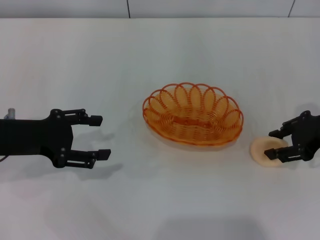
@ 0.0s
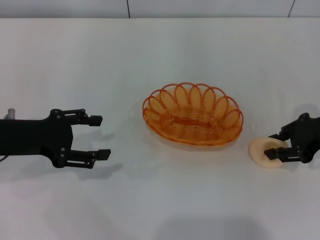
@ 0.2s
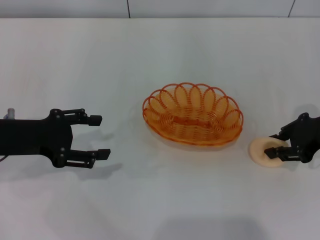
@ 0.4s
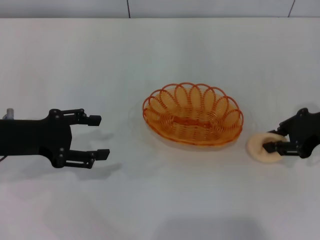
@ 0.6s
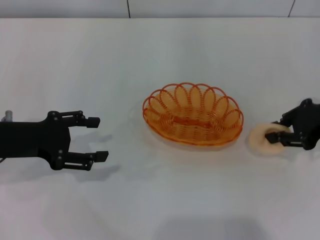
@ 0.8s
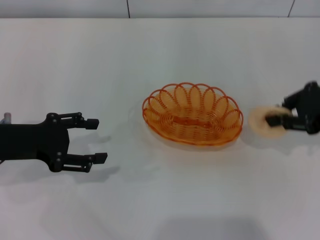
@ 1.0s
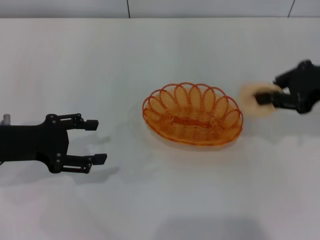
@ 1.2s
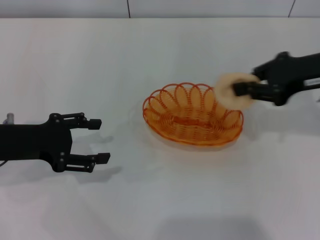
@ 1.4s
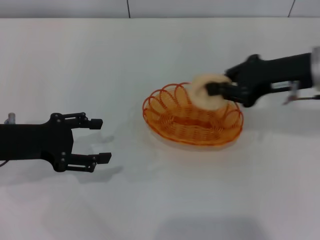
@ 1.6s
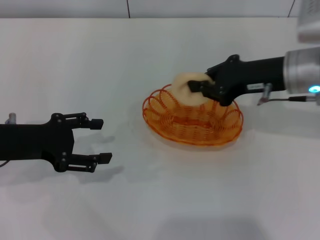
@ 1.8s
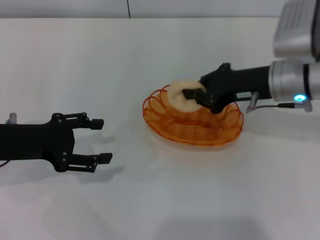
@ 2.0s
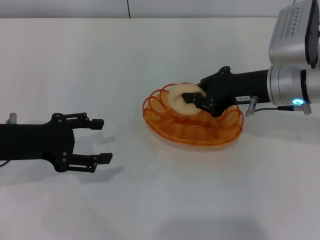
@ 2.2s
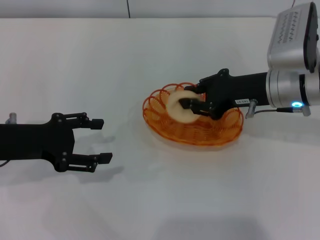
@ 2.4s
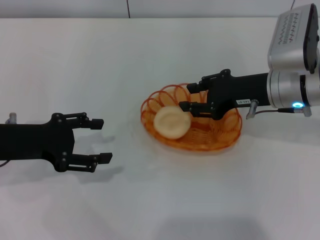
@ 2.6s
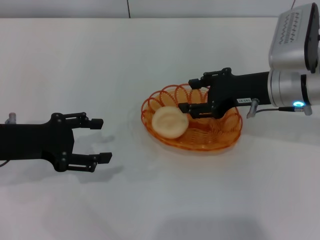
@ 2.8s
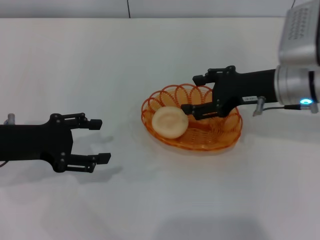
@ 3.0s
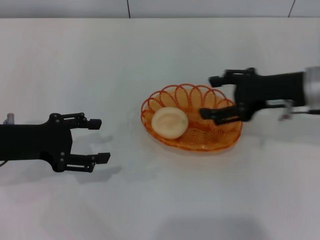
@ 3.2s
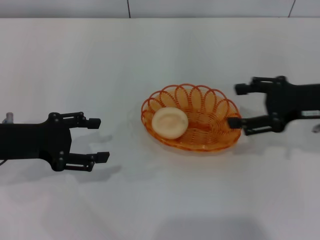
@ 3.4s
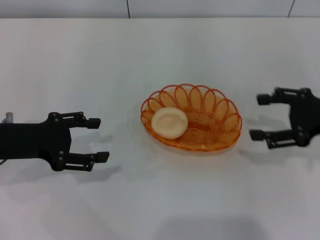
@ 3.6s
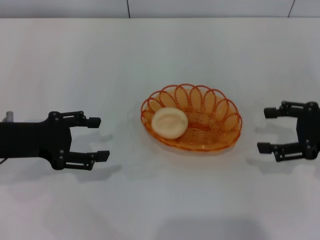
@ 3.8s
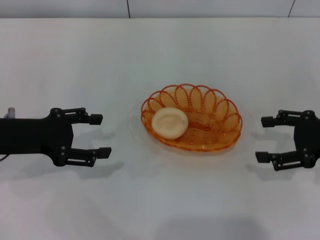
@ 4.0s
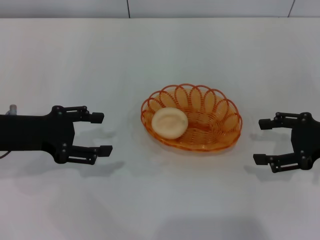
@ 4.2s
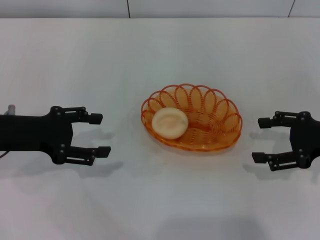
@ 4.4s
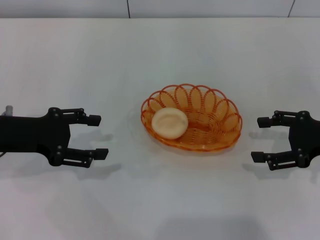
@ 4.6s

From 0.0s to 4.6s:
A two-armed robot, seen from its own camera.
Step, from 1.2s to 3.0s: Place the egg yolk pastry into the basket with the right gripper.
From 0.0s to 1.6s: The right gripper shifts about 10 cm to the left and upward, and closes up.
From 1.6s to 3.0s: The right gripper changes place by some 5 cm, and opens up.
From 3.0s to 4.6s: The right gripper is displaced to the right and backward by about 15 cm.

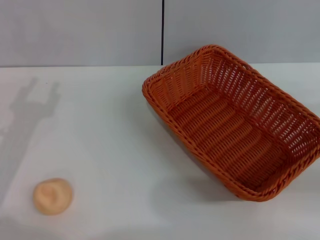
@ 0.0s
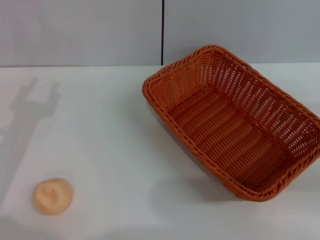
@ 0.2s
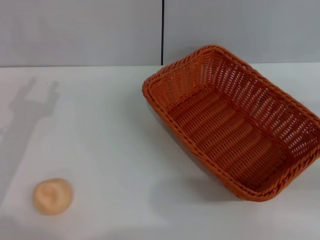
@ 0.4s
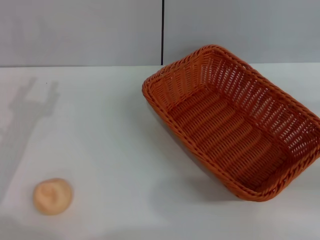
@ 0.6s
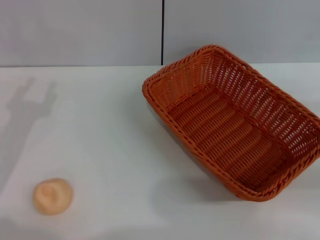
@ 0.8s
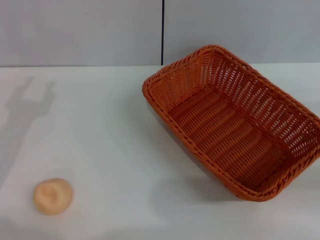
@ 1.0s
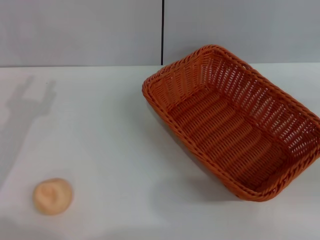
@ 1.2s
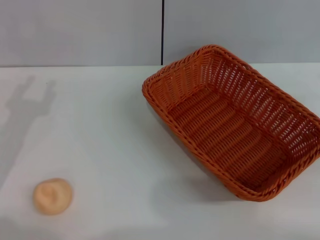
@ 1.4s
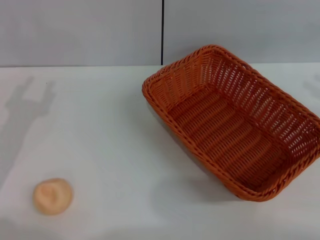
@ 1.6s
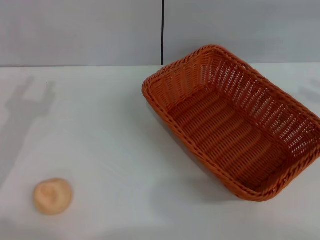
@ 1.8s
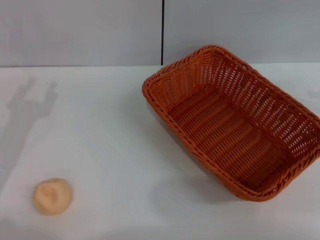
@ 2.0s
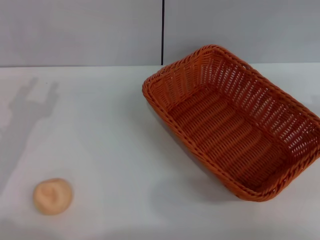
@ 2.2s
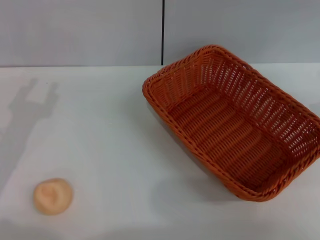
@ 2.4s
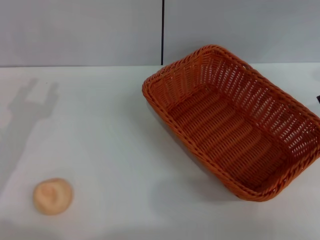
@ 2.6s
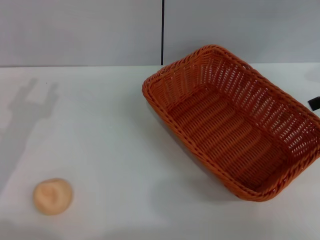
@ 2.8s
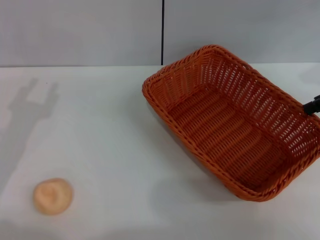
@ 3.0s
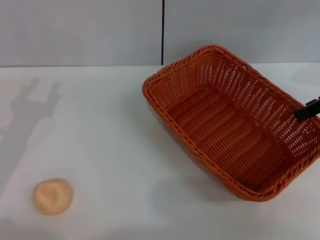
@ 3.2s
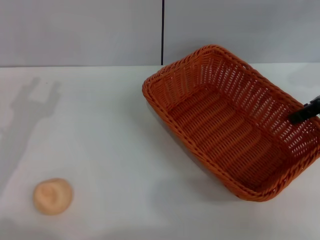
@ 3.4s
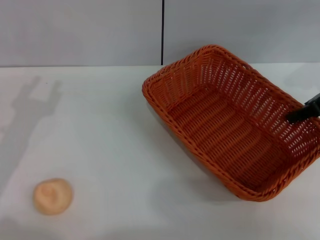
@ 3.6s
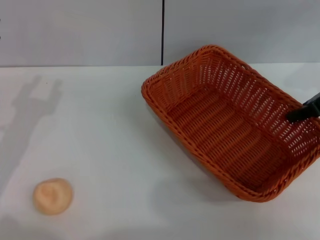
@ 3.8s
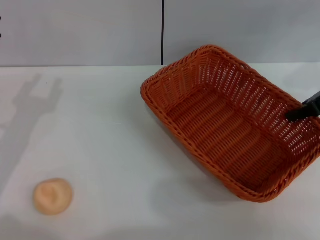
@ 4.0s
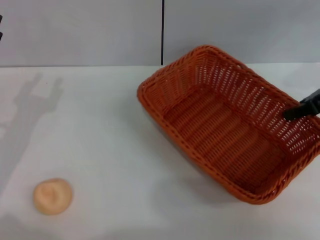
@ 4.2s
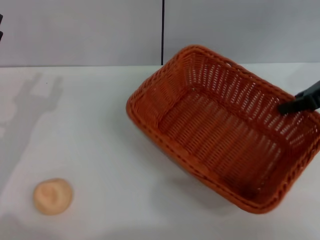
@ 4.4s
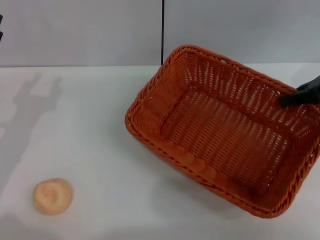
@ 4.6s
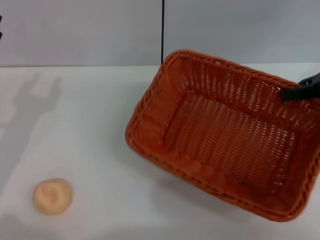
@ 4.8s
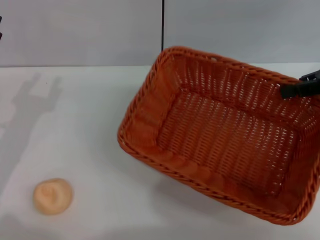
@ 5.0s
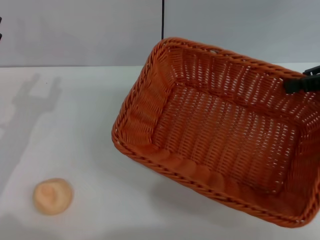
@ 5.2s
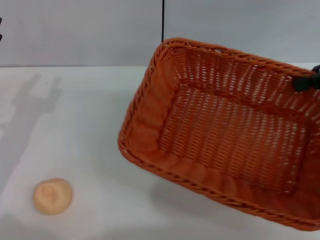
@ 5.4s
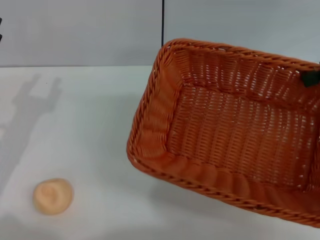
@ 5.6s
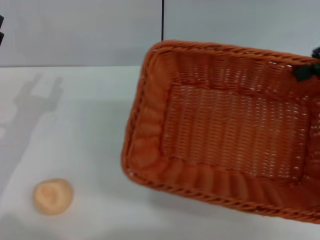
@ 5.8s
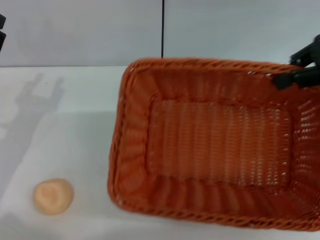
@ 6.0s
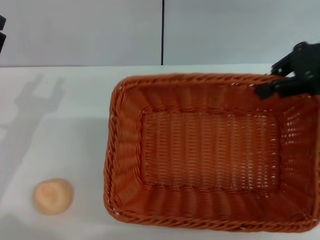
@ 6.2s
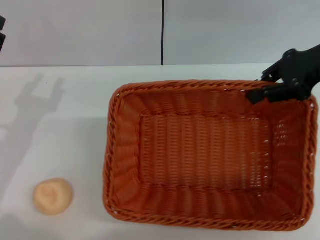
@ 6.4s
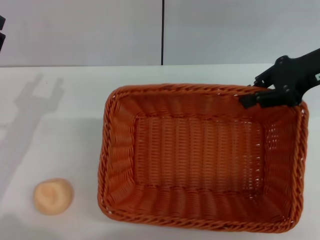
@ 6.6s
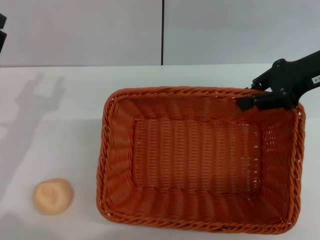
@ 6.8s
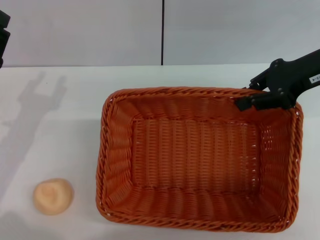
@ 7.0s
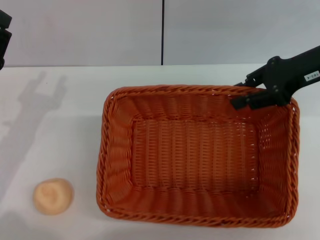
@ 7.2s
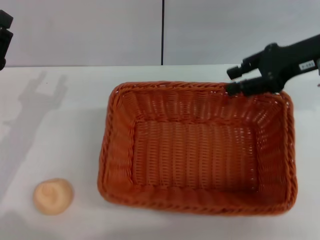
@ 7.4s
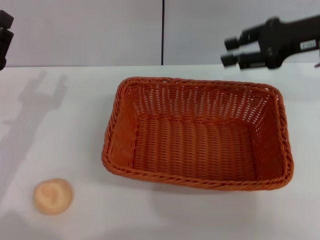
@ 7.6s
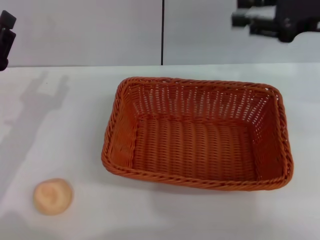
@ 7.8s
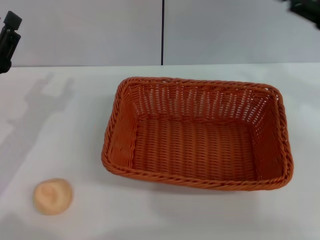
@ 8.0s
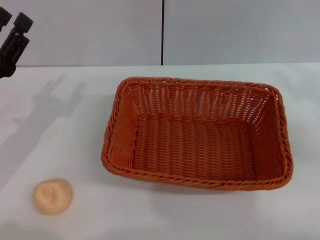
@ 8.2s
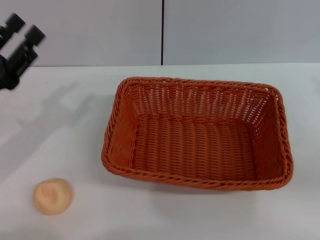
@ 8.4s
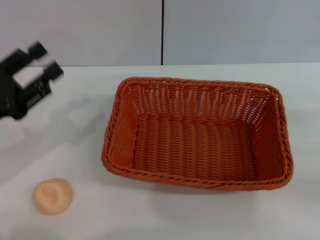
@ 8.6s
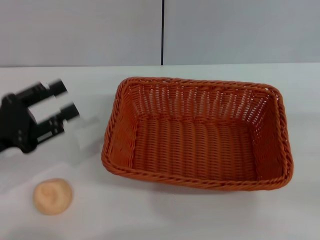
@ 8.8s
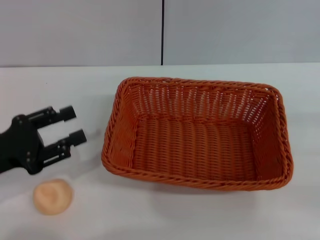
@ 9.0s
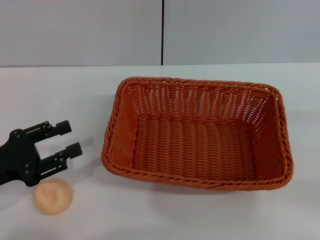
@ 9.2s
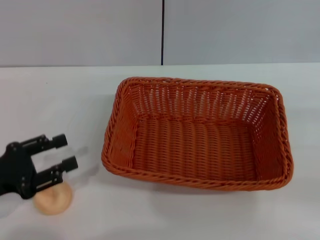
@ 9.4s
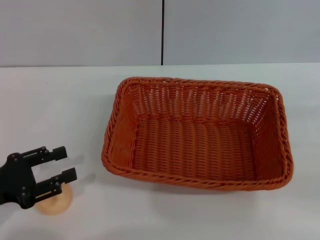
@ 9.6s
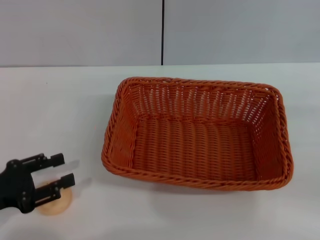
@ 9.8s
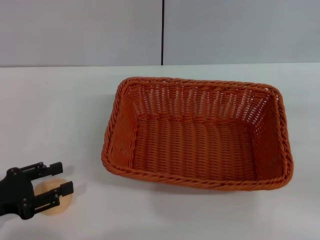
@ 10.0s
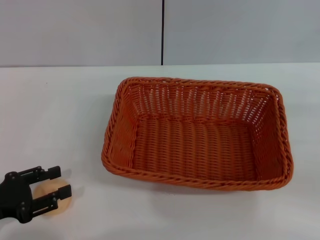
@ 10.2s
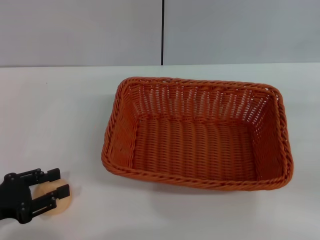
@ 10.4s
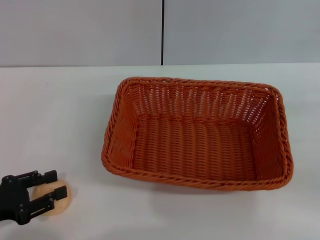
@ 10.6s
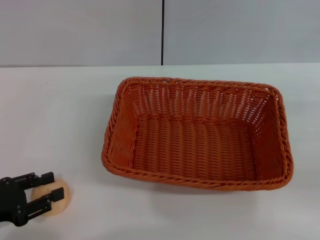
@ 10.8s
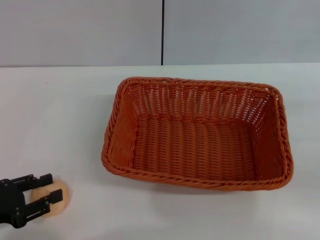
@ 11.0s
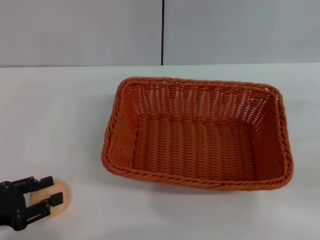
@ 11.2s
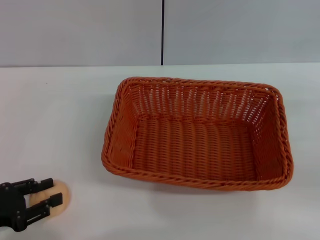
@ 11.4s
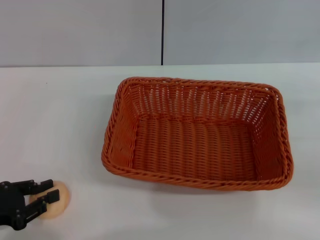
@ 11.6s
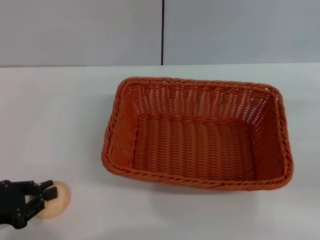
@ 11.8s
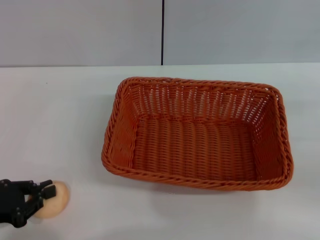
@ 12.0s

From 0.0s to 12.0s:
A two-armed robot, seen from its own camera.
Step, from 0.0s to 7.4s: Move the basket to the center of view with the right gripper.
From 3.0s to 4.4s: The right gripper closes its fingers.
From 4.4s to 6.0s: The right gripper moves upward, approximately 5 cm.
From 6.0s to 7.6s: The right gripper moves some 5 cm, and opens its fingers.
From 7.6s to 9.0s: The right gripper goes about 25 cm backward, to the right and downward.
From 9.0s to 10.4s: The left gripper ends up about 5 cm from where it was.
From 10.4s to 12.0s: The left gripper closes up.

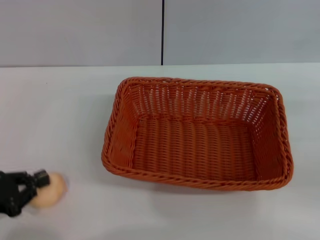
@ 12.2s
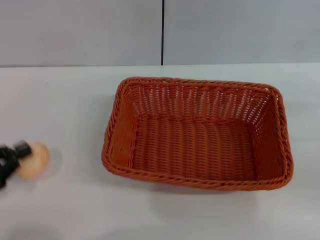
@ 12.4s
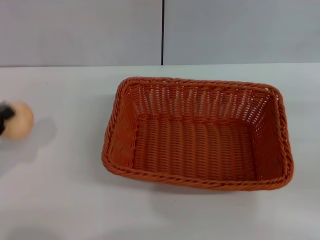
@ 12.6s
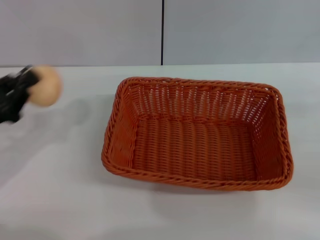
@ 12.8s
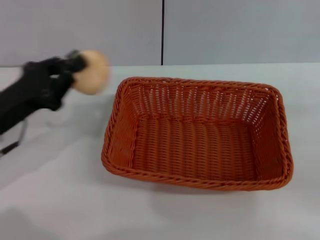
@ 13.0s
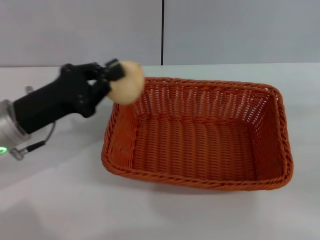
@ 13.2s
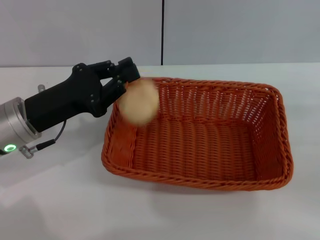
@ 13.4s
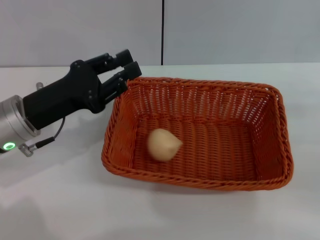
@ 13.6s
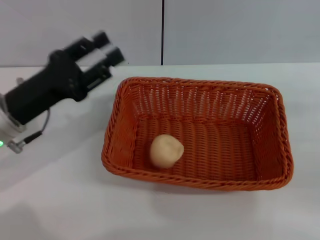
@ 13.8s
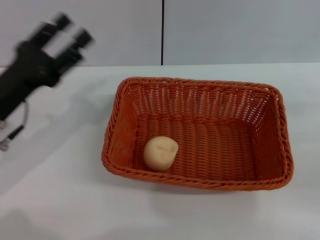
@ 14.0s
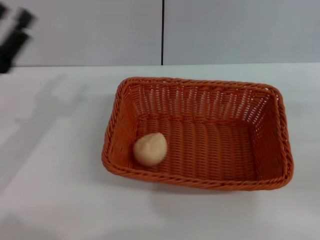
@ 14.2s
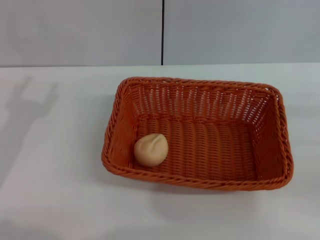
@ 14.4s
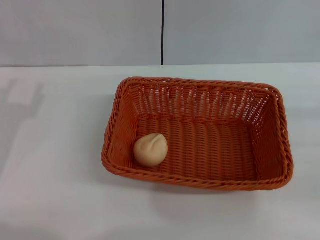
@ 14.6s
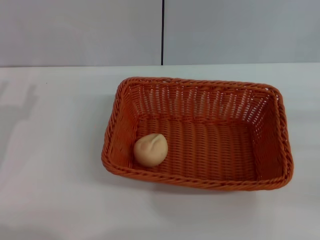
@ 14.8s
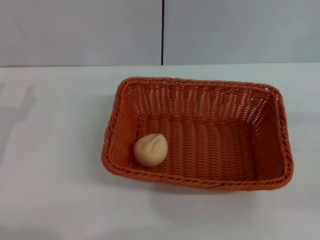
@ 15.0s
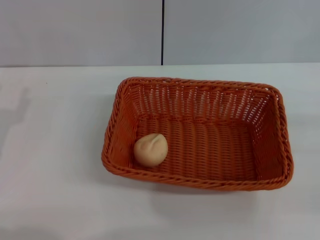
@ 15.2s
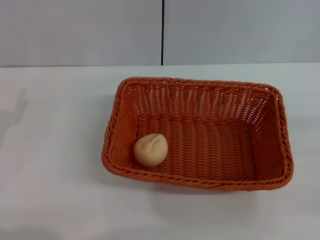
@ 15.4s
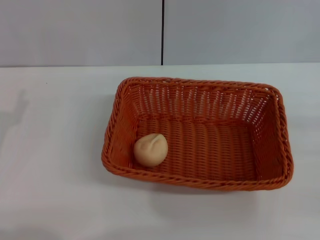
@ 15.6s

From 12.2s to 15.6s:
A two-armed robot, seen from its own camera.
Step, from 12.6s to 13.6s: Place the egg yolk pastry into the basket with the left gripper.
From 12.2s to 13.8s: The left gripper goes roughly 15 cm to the right, forward and upward, and opens.
From 13.8s to 15.6s: The left gripper goes some 10 cm to the left and backward, and opens its fingers.

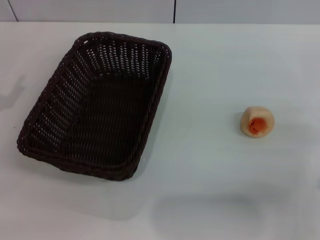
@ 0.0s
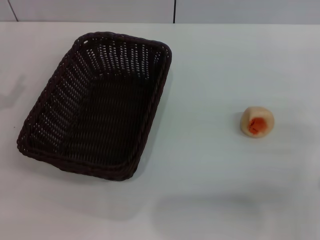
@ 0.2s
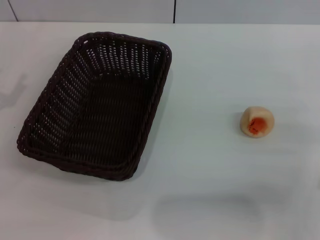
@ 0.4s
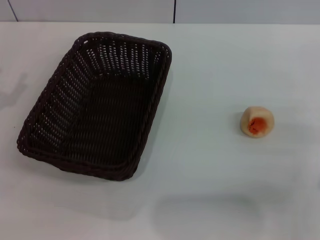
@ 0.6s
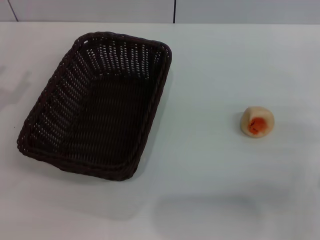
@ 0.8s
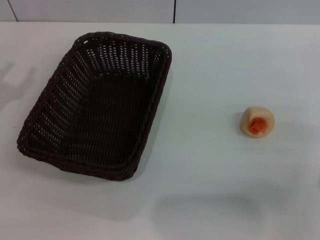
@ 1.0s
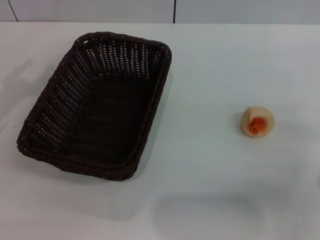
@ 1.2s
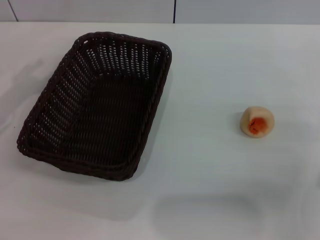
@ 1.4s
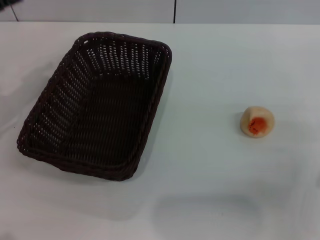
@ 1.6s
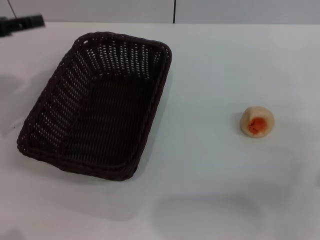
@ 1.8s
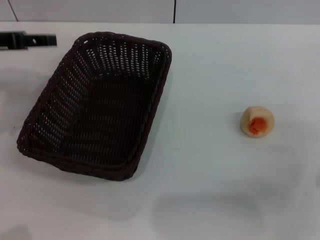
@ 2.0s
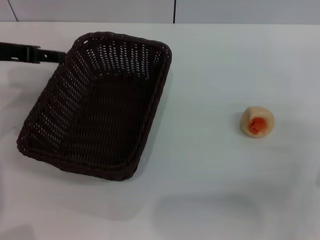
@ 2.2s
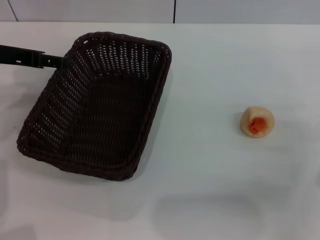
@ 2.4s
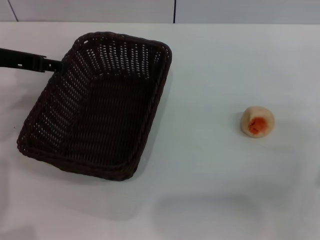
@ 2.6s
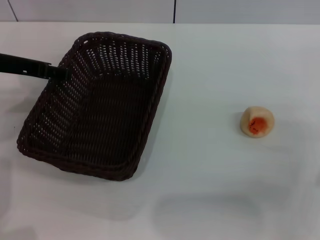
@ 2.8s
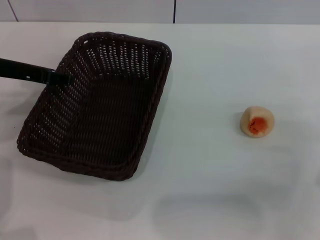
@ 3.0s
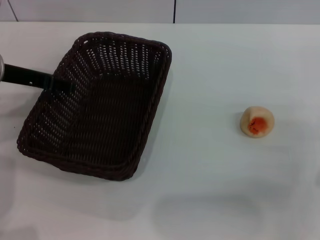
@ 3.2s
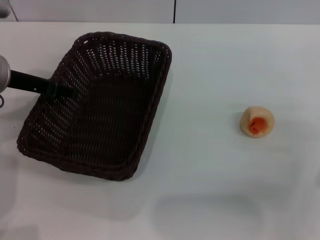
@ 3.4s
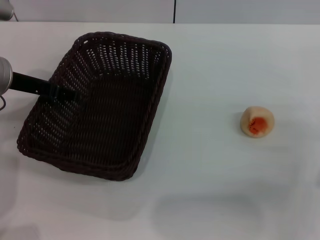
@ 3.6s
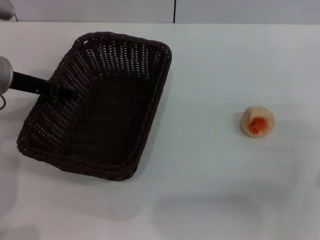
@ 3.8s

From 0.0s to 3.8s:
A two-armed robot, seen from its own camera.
From 1.2s to 2.6s: The left gripper heads to the right and forward, covering roughly 10 cm.
From 2.6s to 3.8s: There are only small adjustments of the grippers.
